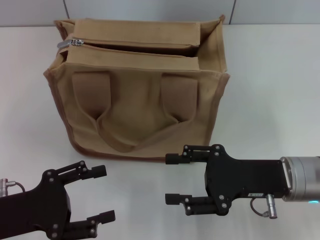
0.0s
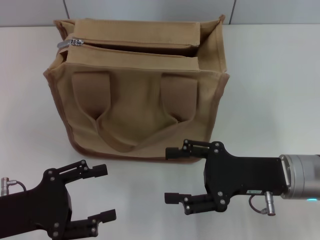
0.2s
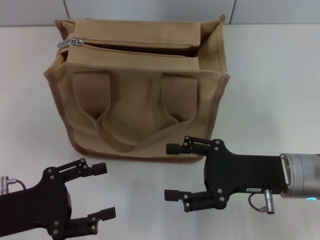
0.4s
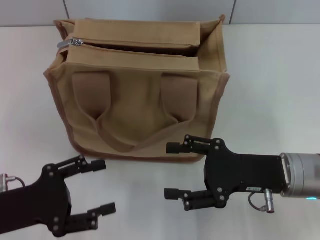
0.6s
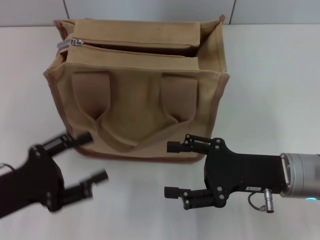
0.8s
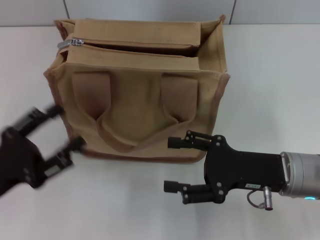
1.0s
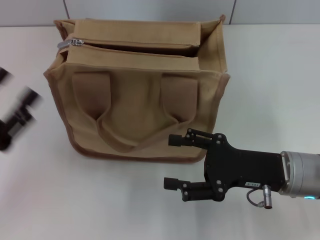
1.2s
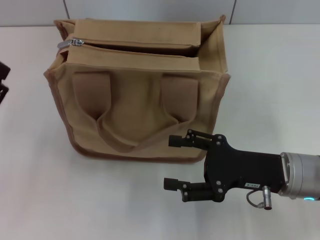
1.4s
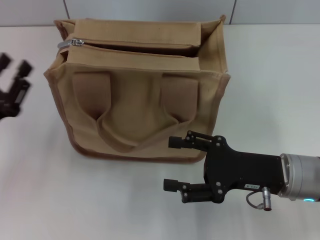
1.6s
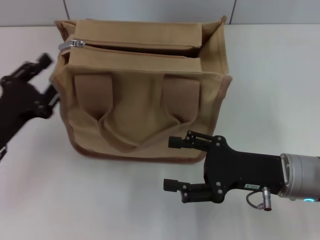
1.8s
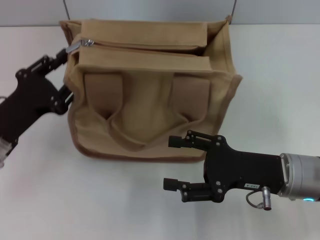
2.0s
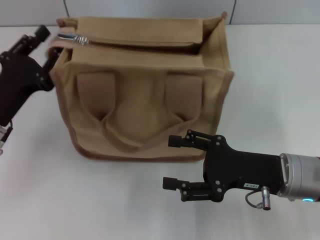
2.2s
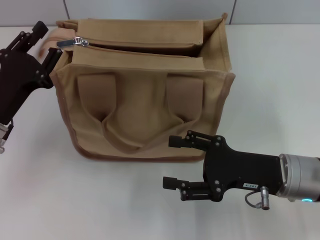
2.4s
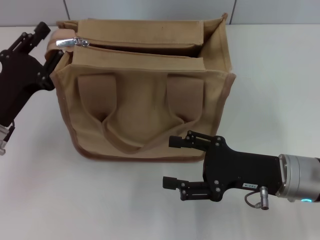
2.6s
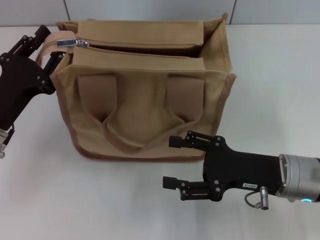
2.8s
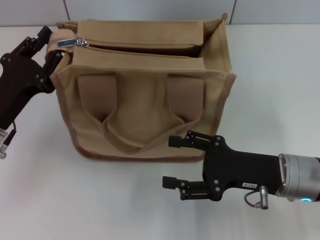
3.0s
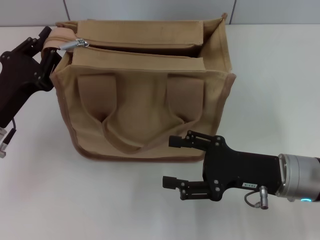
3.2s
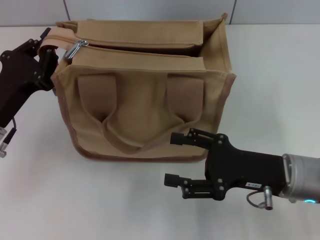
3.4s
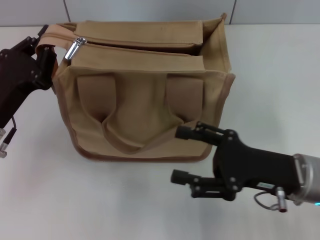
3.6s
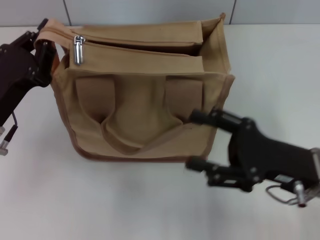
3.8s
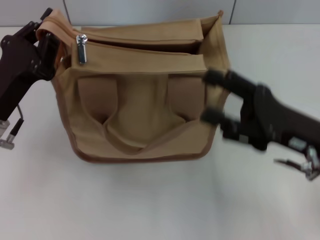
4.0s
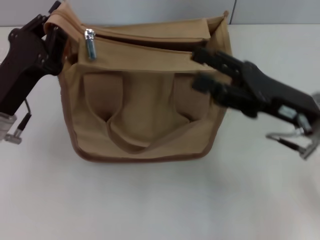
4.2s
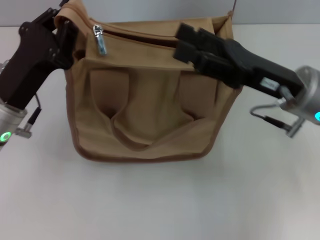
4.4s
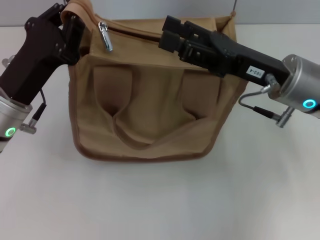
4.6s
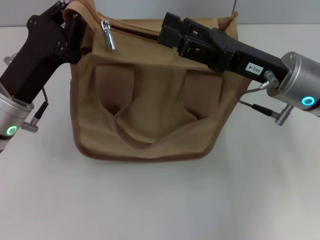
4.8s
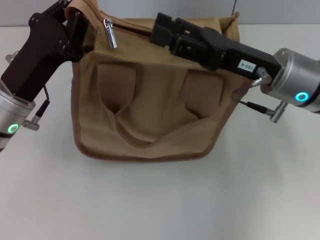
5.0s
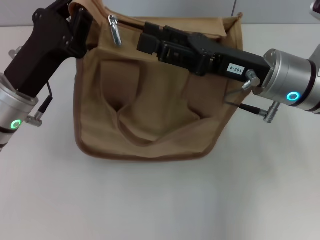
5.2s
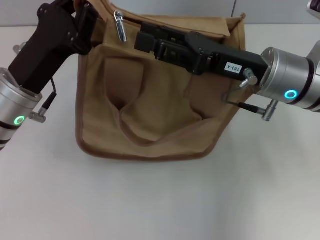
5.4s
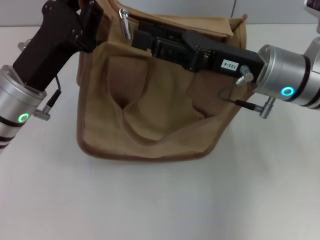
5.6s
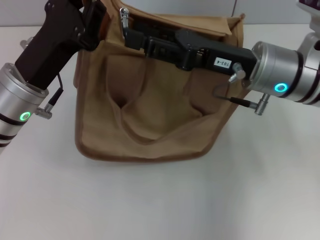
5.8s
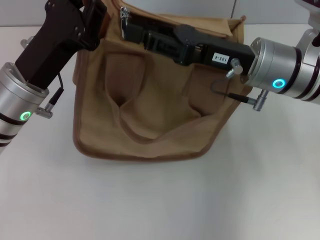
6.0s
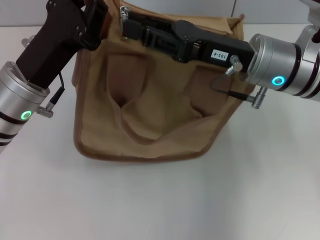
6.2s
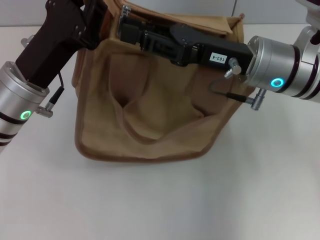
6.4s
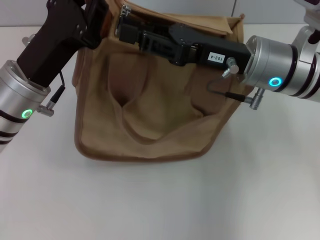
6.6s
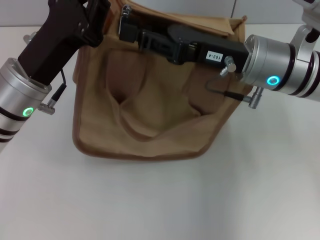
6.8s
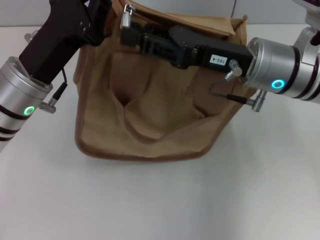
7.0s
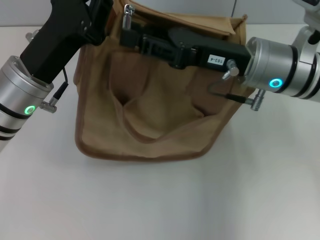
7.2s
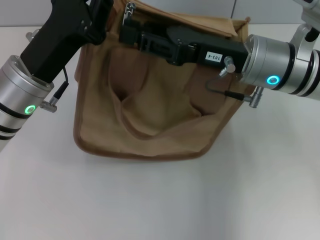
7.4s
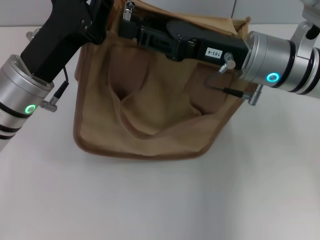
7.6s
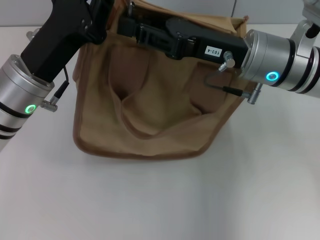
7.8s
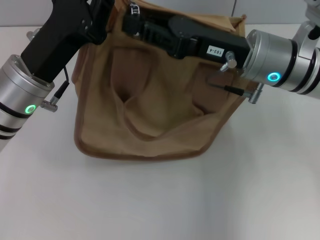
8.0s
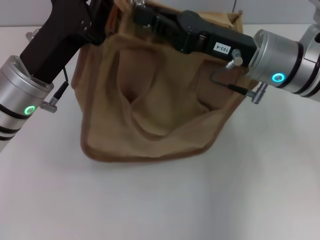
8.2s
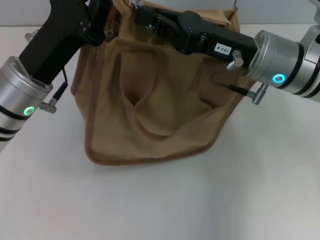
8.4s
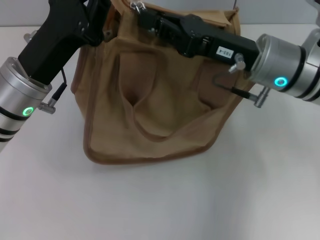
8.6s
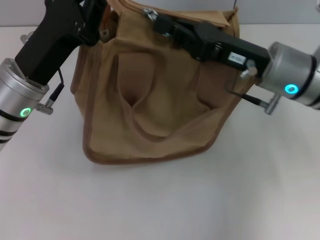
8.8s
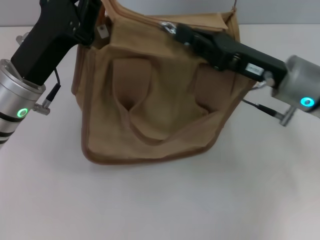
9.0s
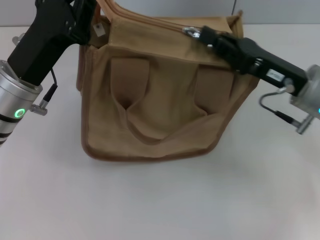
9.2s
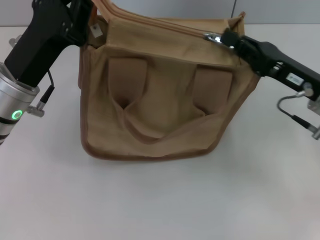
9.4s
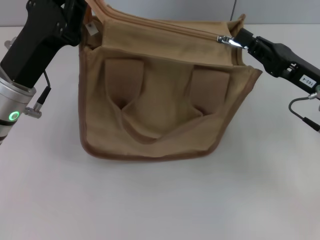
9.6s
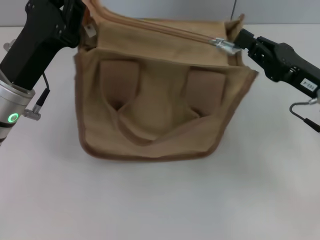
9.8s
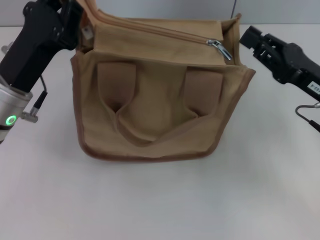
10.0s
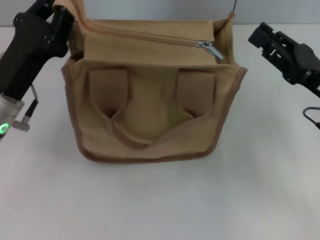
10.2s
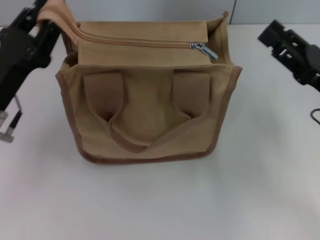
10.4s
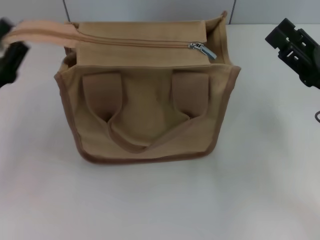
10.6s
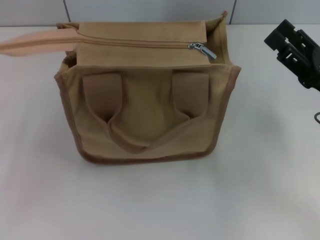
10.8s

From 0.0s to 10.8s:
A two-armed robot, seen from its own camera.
Step, from 0.0s to 9.6s: Pull up the zipper with your right hand.
Step, from 10.0s to 10.8s: Grab the zipper with your left hand.
From 0.0s to 1.6s: The left gripper ends up approximately 5 cm from where it was.
From 1.6s to 3.0s: The left gripper moves about 5 cm, and closes up.
From 3.0s to 4.6s: The right gripper travels upward and forward by about 10 cm. The left gripper ends up some 5 cm from where it was, and closes.
From 4.6s to 6.2s: The right gripper closes.
From 6.2s to 7.8s: Neither gripper changes place.
From 7.8s to 9.2s: The right gripper shifts some 10 cm to the right.
From 9.2s to 10.8s: The left gripper shifts some 15 cm to the left, backward and downward, and opens its fingers; the right gripper is displaced to the right by about 5 cm, and opens up.

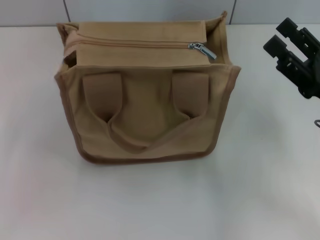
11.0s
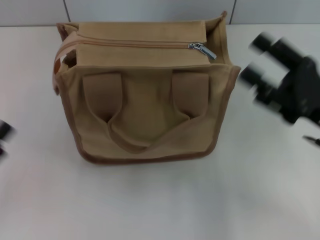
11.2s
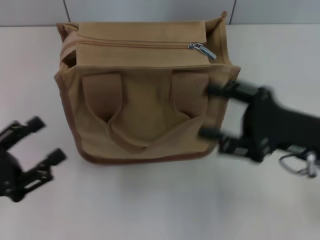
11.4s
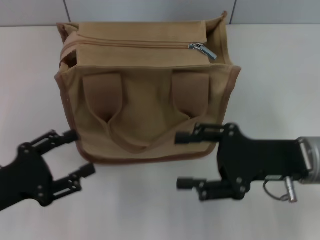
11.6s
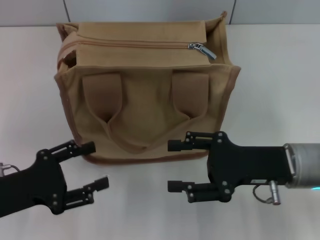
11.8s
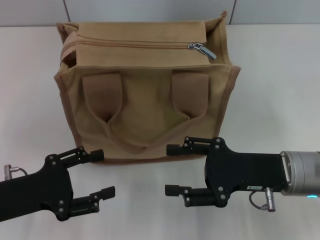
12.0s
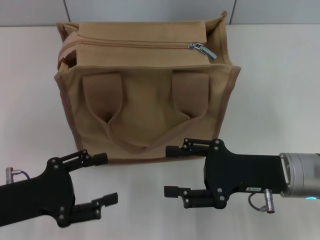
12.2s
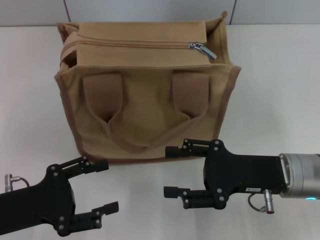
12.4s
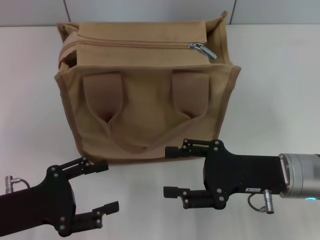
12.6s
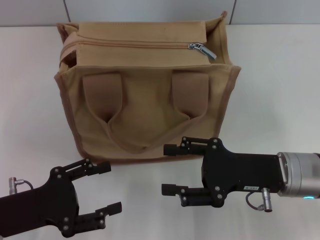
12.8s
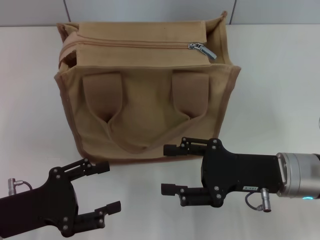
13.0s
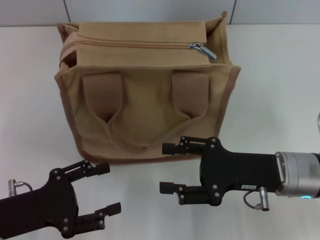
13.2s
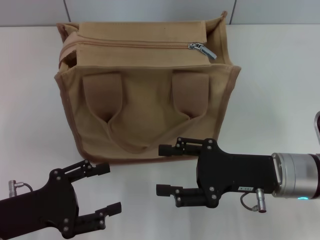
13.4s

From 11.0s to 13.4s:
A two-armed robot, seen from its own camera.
From 11.0s to 12.2s: The left gripper goes some 5 cm to the right. The right gripper shifts about 5 cm to the left.
From 12.2s to 13.4s: The grippers move only a little.

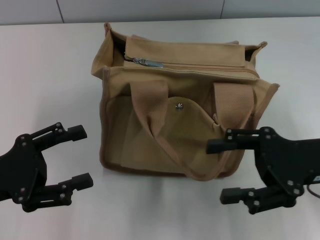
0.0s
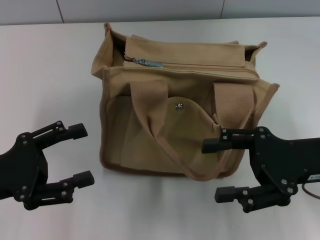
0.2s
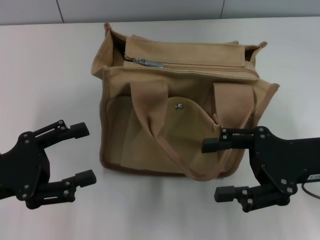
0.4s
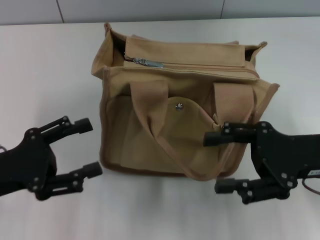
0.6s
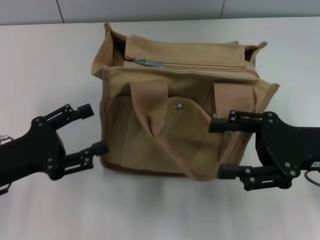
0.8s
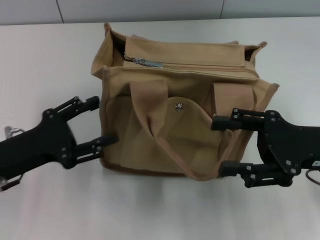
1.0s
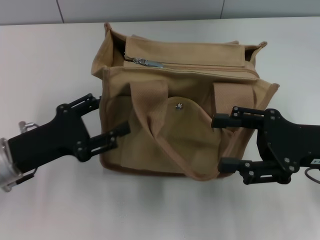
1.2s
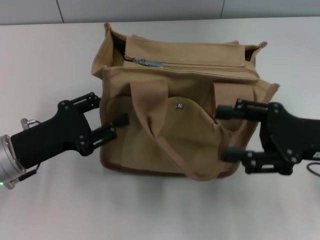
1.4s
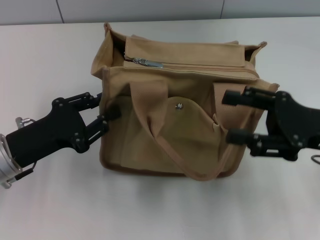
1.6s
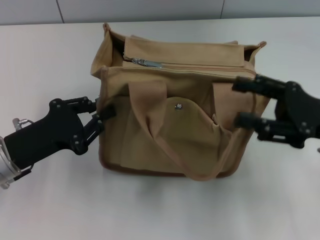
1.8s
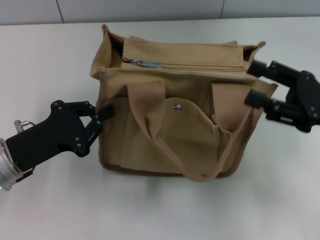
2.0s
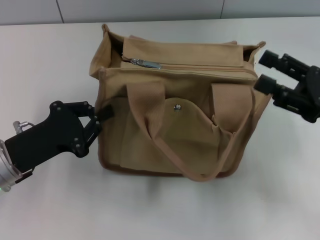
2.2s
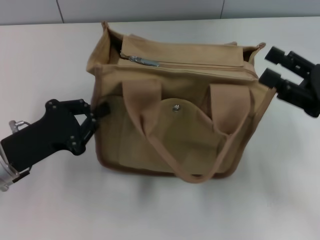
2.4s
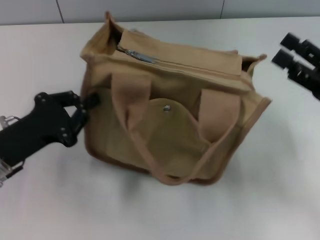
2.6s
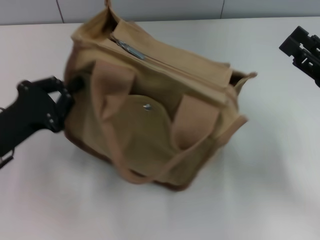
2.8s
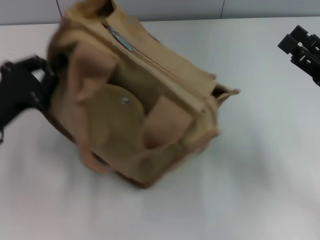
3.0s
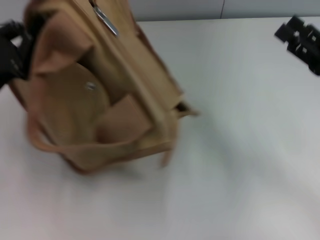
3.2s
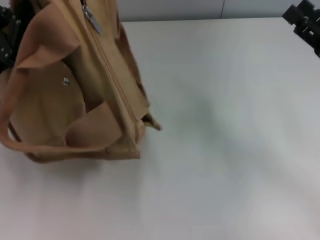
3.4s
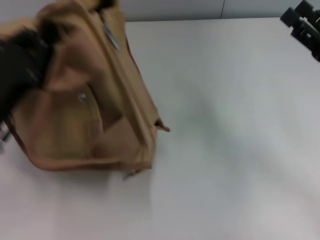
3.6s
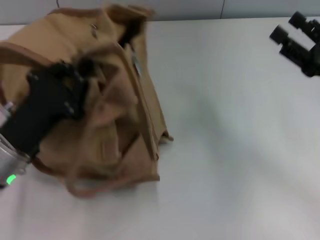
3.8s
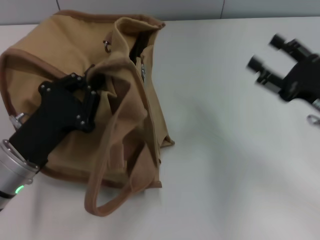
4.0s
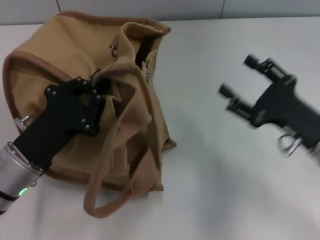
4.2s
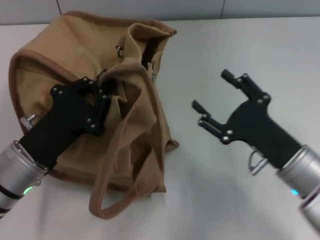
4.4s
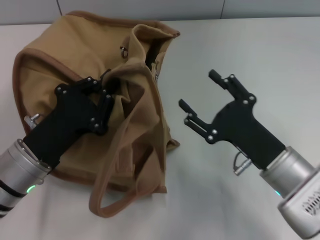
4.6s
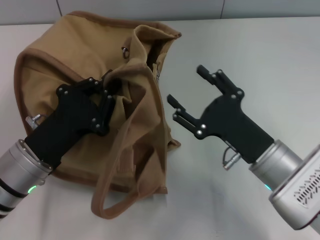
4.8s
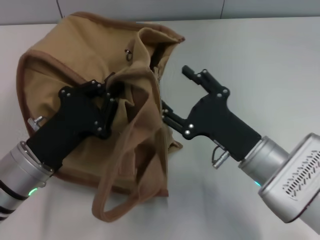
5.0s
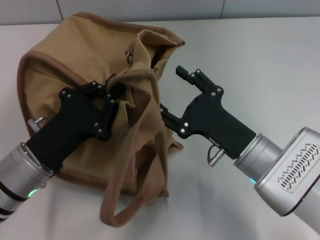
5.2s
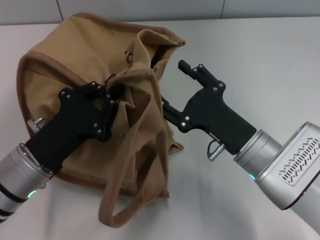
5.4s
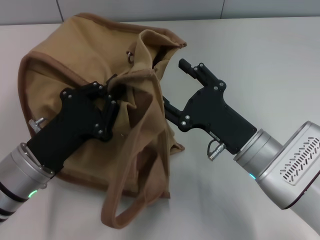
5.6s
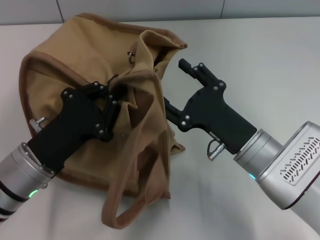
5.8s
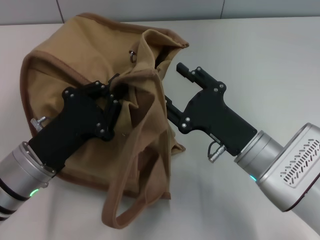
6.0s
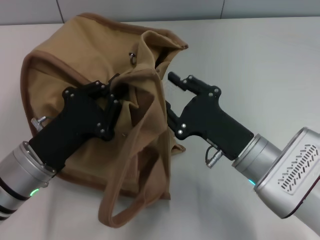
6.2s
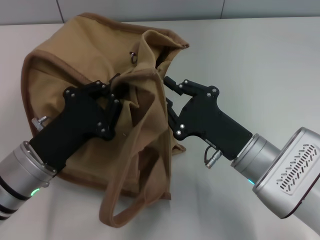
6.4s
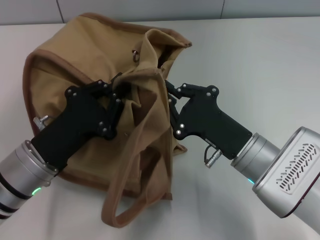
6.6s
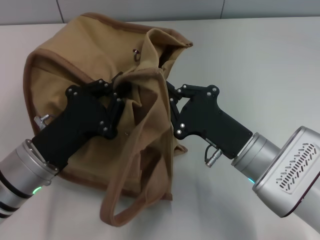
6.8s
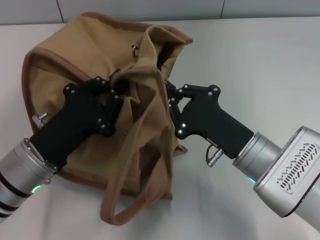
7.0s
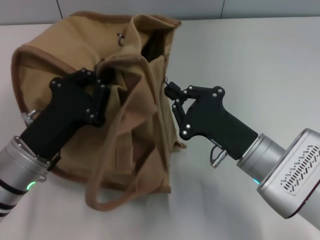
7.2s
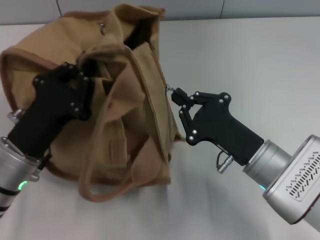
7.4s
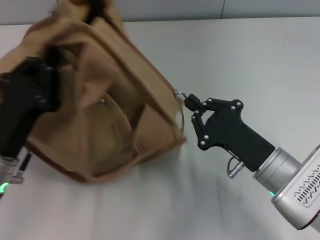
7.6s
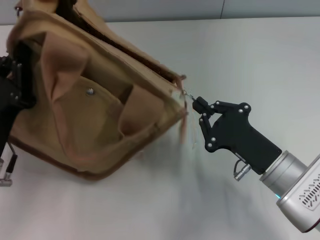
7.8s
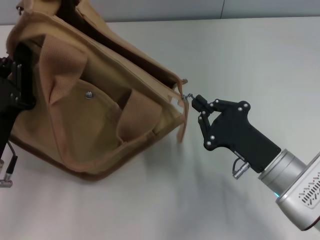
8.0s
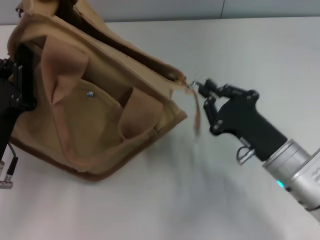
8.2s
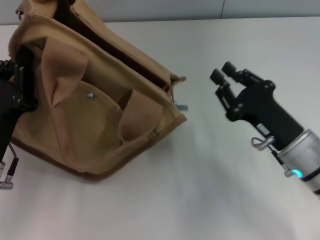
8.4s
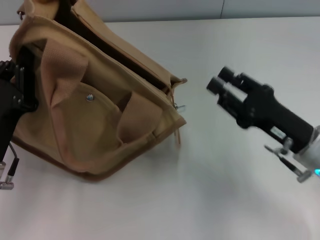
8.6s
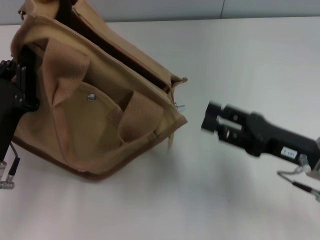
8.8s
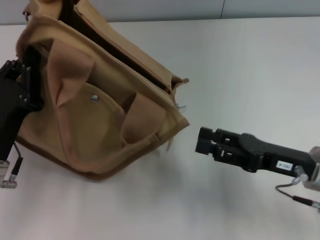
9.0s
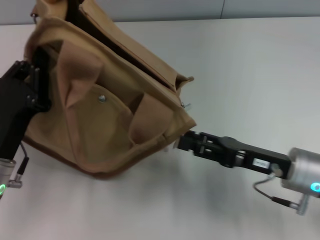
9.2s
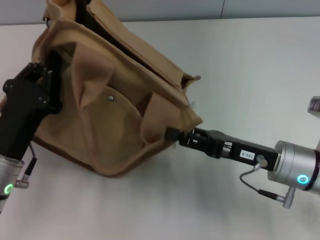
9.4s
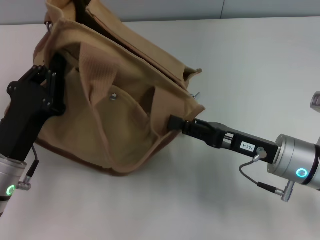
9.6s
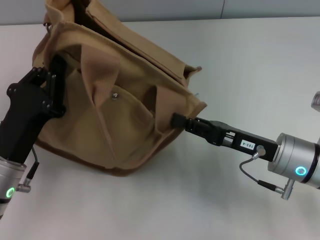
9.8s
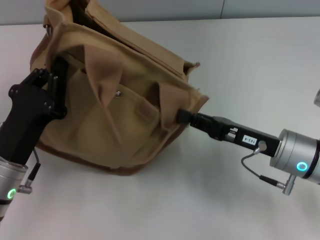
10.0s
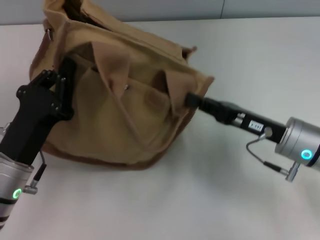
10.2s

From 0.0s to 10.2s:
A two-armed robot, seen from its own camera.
Step, from 0.0s to 8.2s: Pull open the zipper with your right hand.
From 0.0s to 1.4s: The left gripper moves about 5 cm.
From 1.4s to 3.0s: The left gripper closes its fingers; the right gripper moves approximately 5 cm.
From 3.0s to 4.4s: The right gripper goes roughly 10 cm to the left and downward, while the left gripper heads to the right, covering roughly 5 cm.
From 4.4s to 5.8s: The right gripper is displaced to the left by about 5 cm.
From 5.8s to 7.2s: The right gripper closes up.
From 7.2s to 8.8s: The right gripper moves to the right, about 10 cm, and opens its fingers.
From 8.8s to 10.2s: The right gripper closes its fingers.
